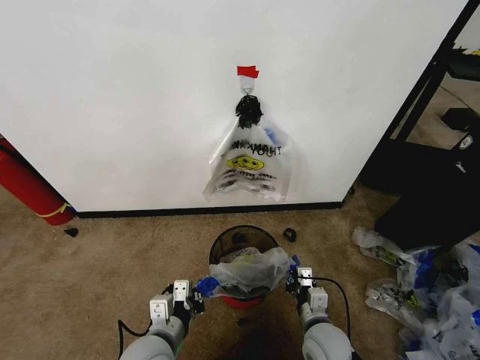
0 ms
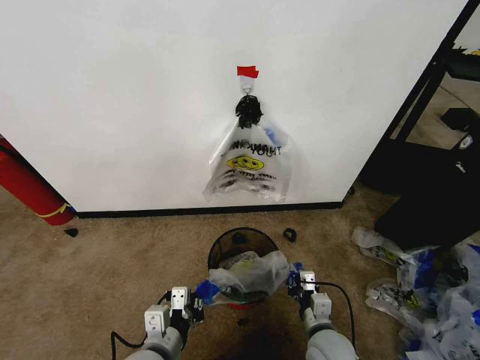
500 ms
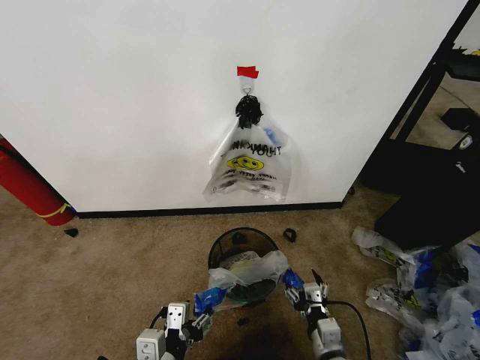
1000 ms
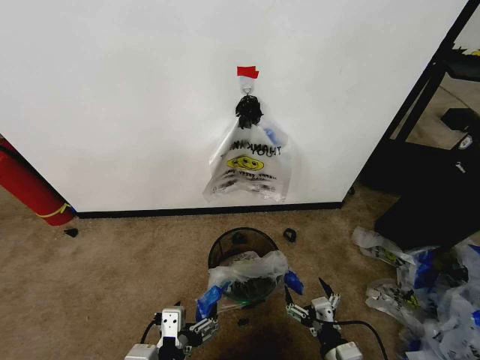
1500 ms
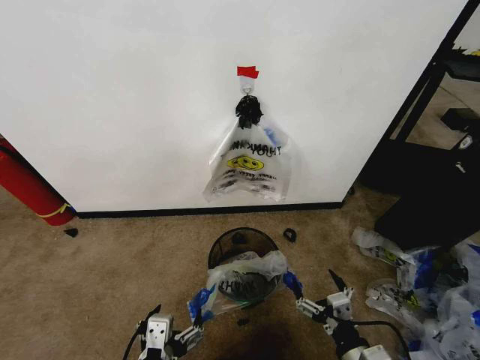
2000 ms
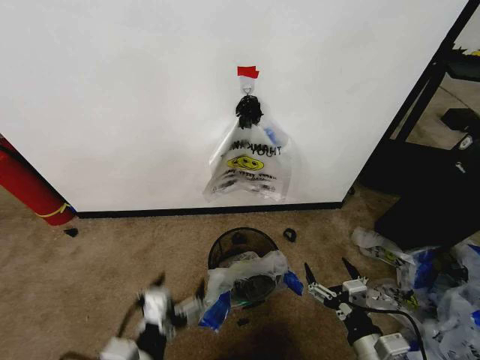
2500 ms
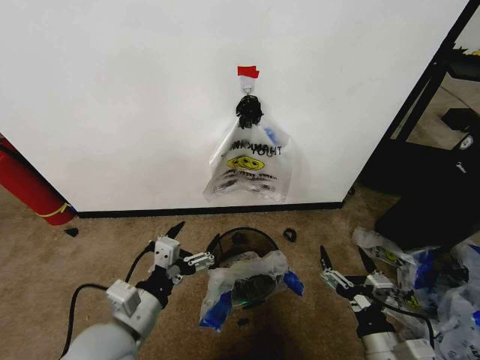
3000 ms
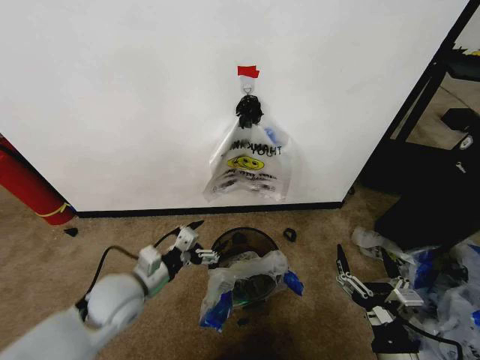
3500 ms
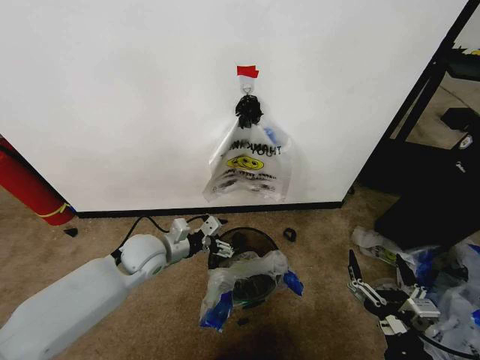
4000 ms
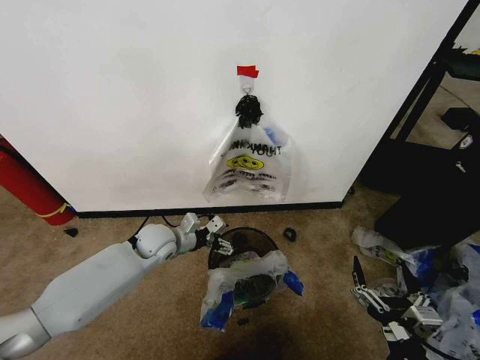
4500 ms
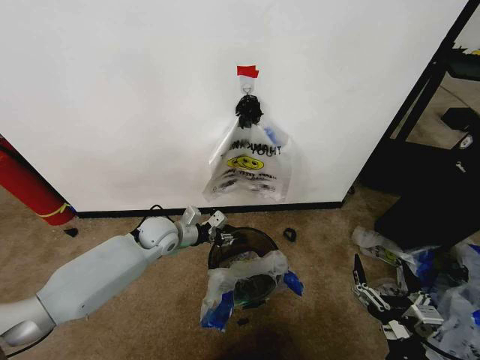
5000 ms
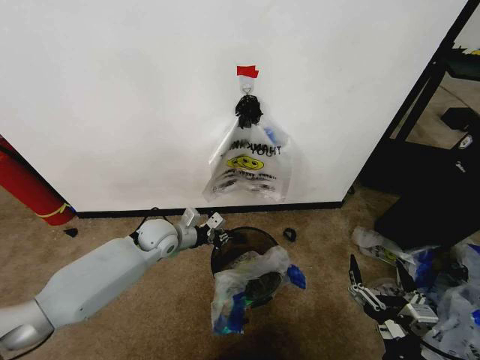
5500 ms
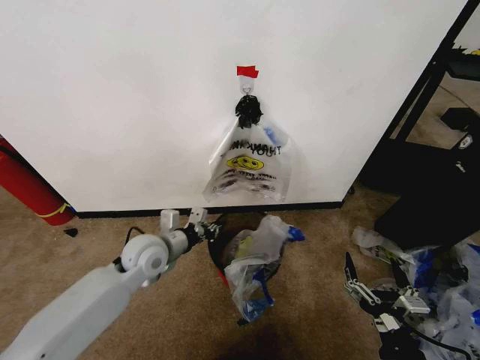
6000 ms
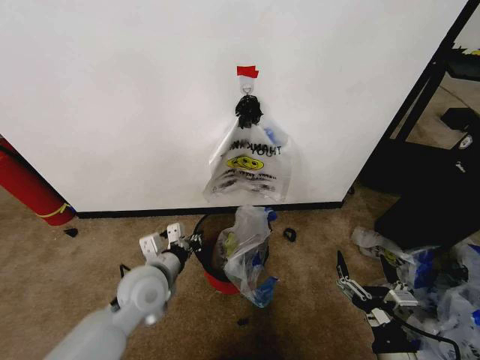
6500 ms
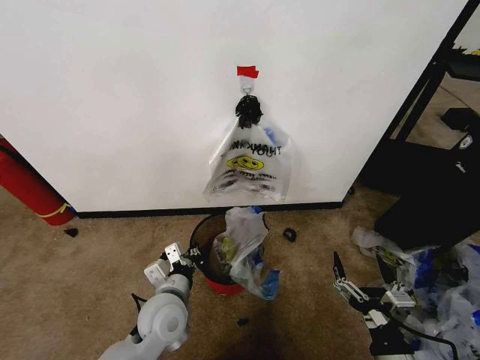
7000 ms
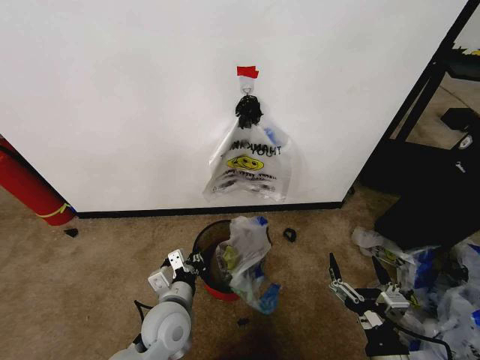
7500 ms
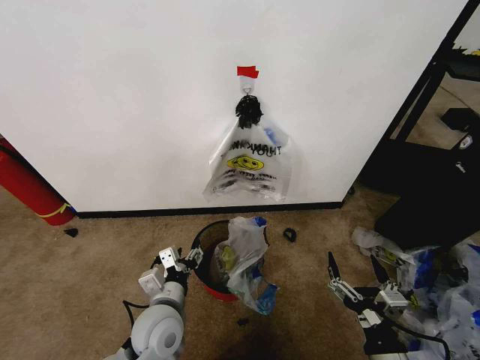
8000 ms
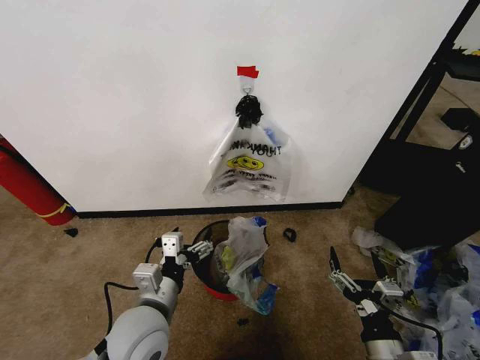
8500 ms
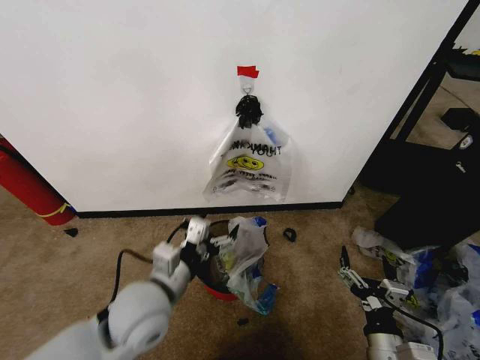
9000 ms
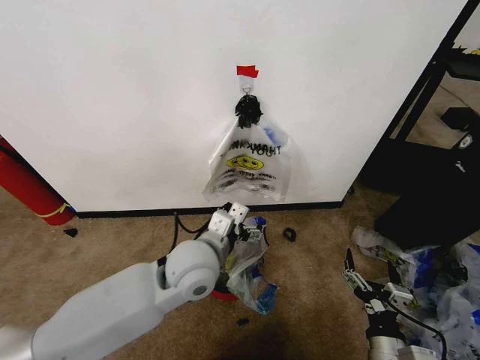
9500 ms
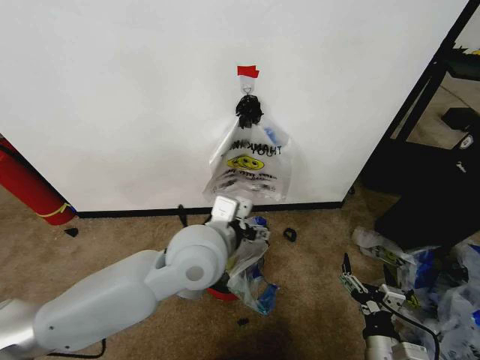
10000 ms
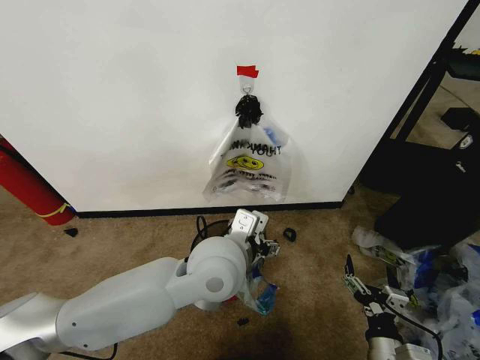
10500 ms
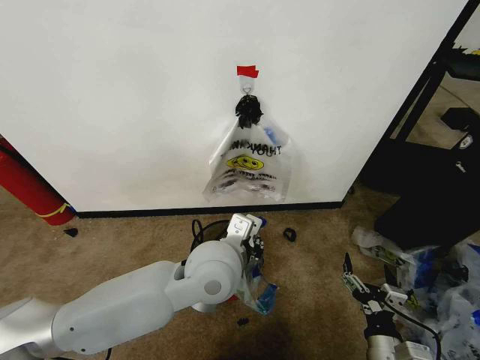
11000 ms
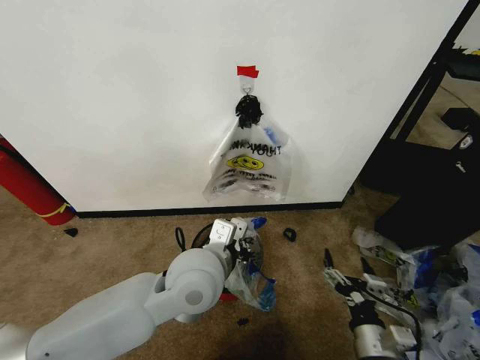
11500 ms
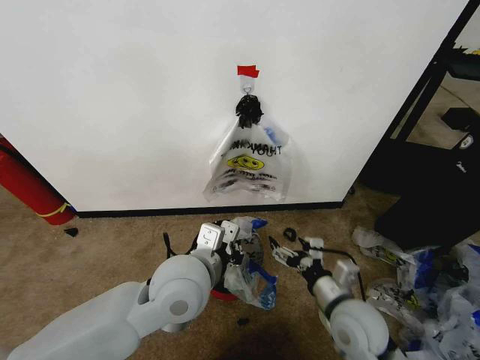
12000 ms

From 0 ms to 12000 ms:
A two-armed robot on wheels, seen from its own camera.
Task of the whole recording: Pick up the garbage bag from the wall and place it over the trash bin.
From 0 ms to 2000 ms: The right gripper heads backward, to the right and upward, covering some 15 cm, and opens up. The left gripper moves backward and upward, approximately 15 cm, and opens.
From 2000 ms to 4000 ms: The left gripper goes some 35 cm forward; the right gripper shifts about 5 cm upward.
From 4000 ms to 6000 ms: The left gripper closes.
From 6000 ms to 8000 ms: The left gripper moves backward and downward, some 15 cm, and opens up.
From 8000 ms to 10000 ms: The left gripper shifts approximately 20 cm upward and to the right, while the right gripper heads downward, covering roughly 5 cm.
From 10000 ms to 12000 ms: The right gripper goes about 15 cm forward, upward and to the left. Meanwhile the left gripper changes place by approximately 5 cm, and closes.

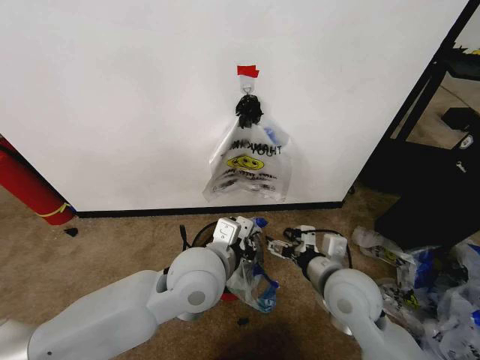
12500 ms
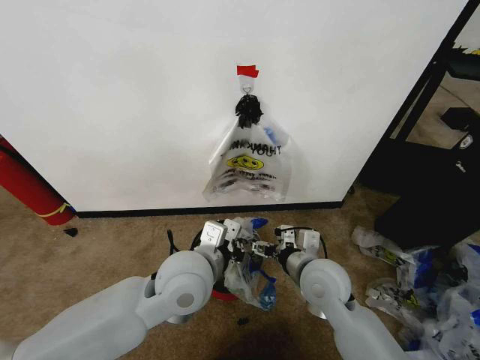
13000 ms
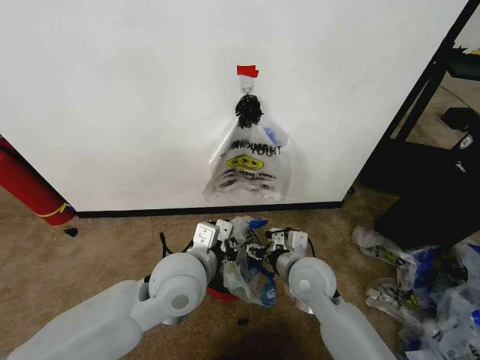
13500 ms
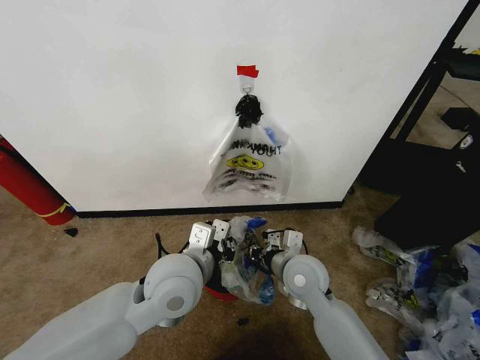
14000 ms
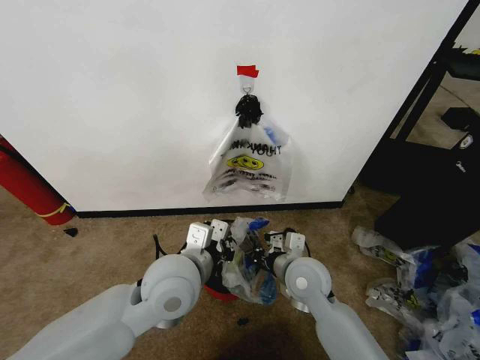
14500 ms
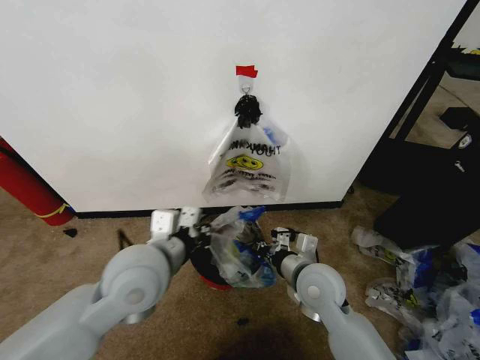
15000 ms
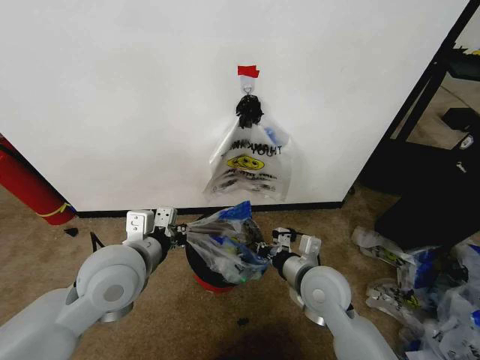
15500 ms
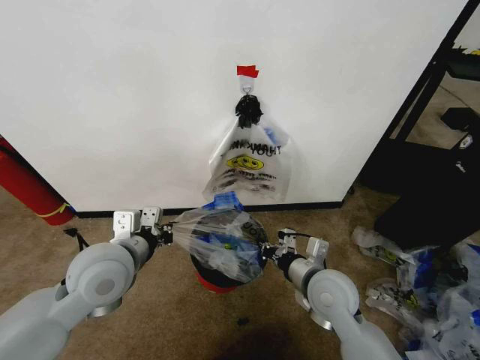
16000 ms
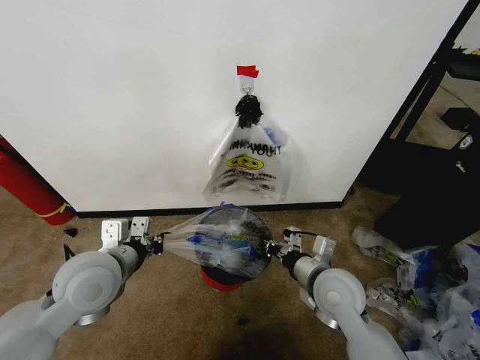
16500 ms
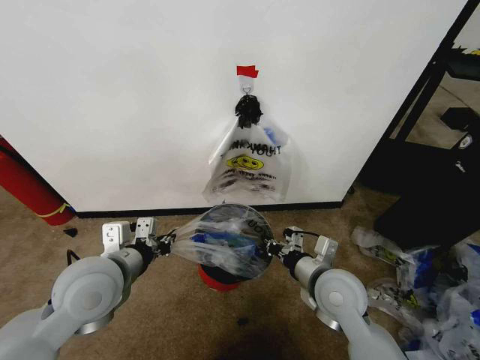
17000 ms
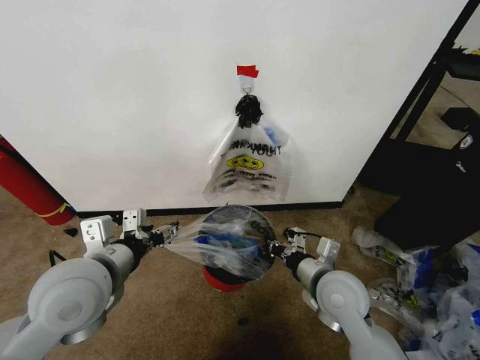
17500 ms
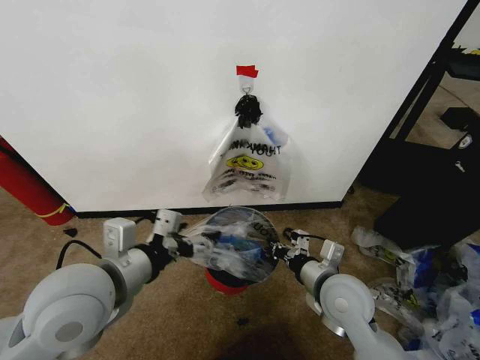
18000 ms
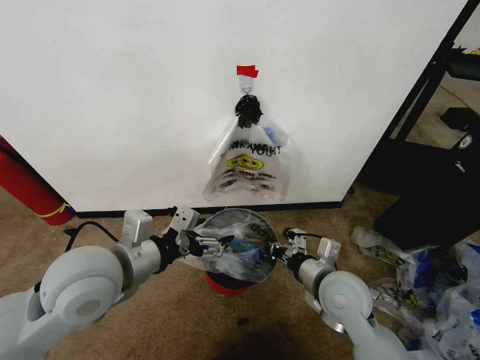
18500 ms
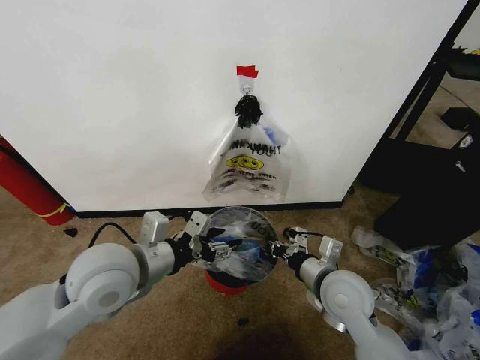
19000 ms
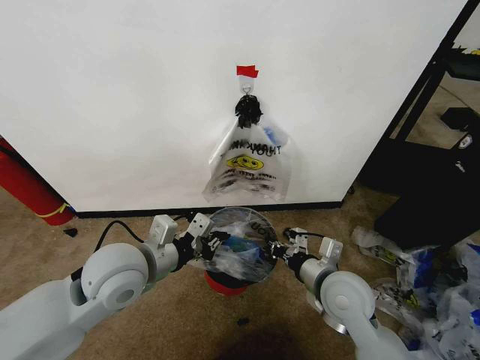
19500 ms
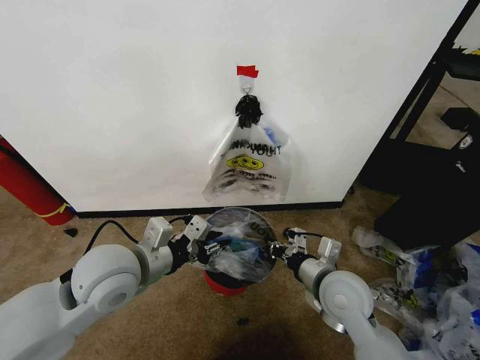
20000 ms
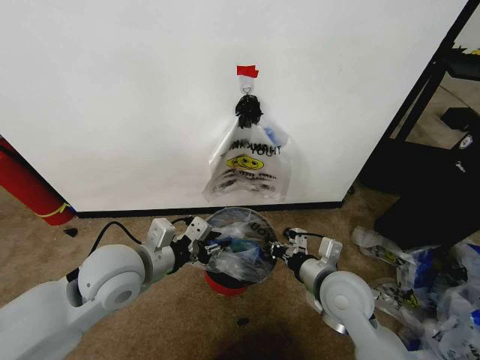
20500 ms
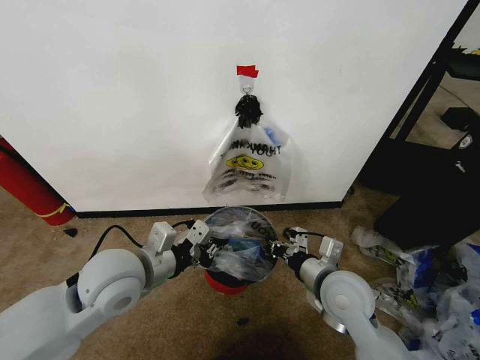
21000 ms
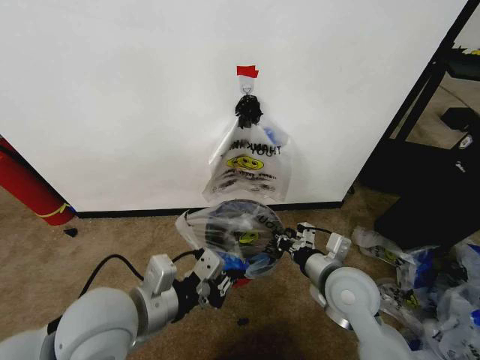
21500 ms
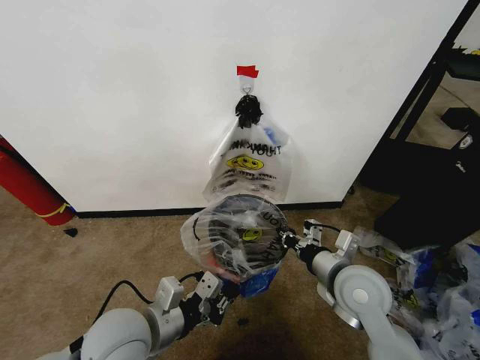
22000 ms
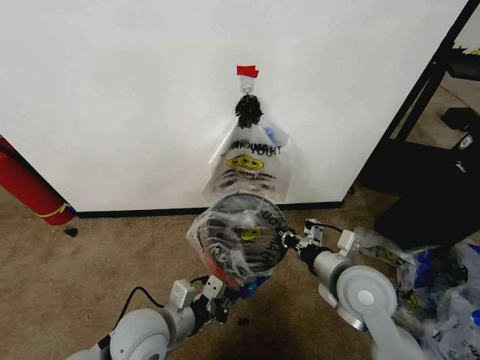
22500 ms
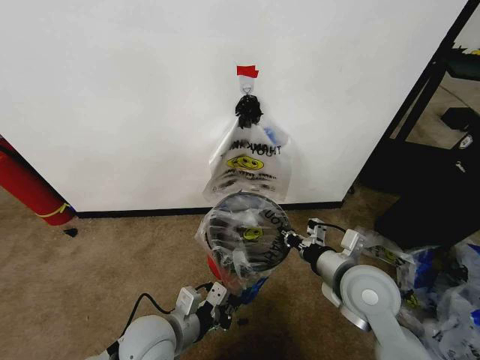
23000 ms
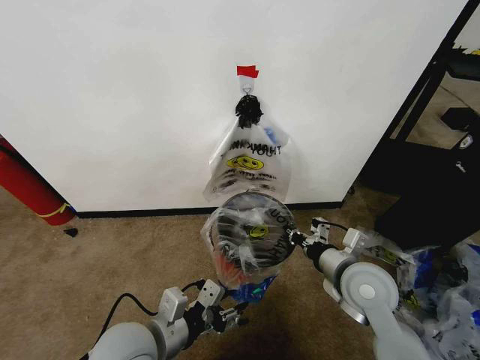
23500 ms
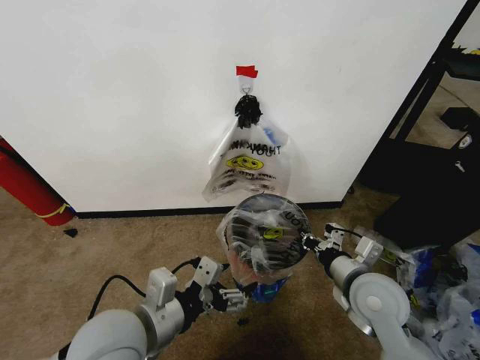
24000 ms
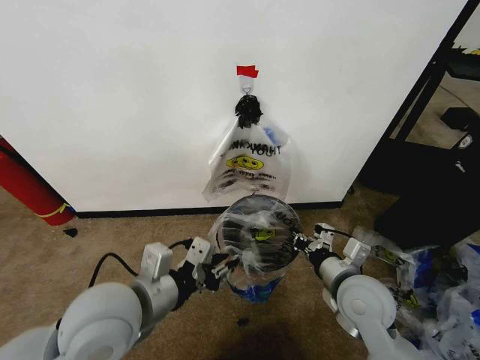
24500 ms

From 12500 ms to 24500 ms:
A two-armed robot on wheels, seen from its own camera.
Task of the whole recording: Pick up the garbage bag from the wall and place it over the trash bin.
From 12500 ms to 14500 ms: The right gripper shifts approximately 10 cm to the left and forward, and closes.
From 14500 ms to 16500 ms: The left gripper is displaced to the left by approximately 15 cm. The right gripper changes place by about 5 cm.
From 16500 ms to 18500 ms: The left gripper goes some 5 cm upward, and opens.
From 18500 ms to 20500 ms: The left gripper shifts by approximately 5 cm, and closes.
From 20500 ms to 22500 ms: The left gripper shifts approximately 15 cm downward and backward.
From 22500 ms to 24500 ms: The left gripper heads upward, covering some 15 cm, and opens, then closes again.

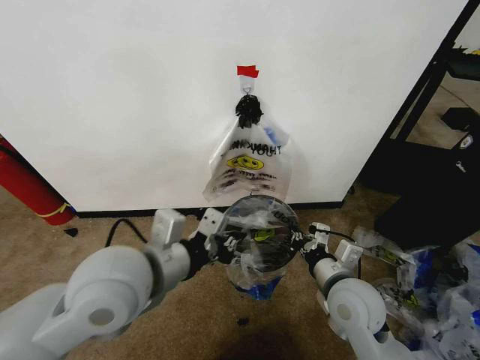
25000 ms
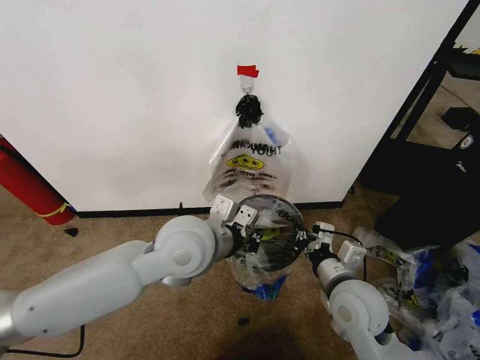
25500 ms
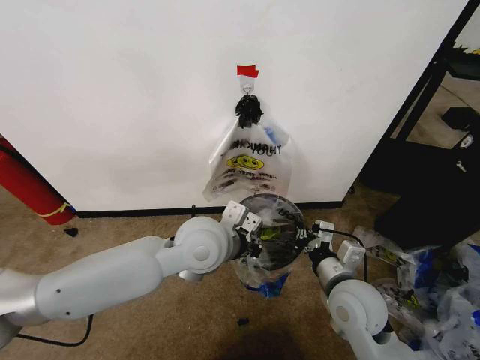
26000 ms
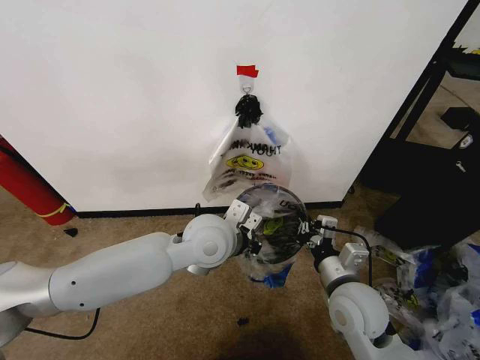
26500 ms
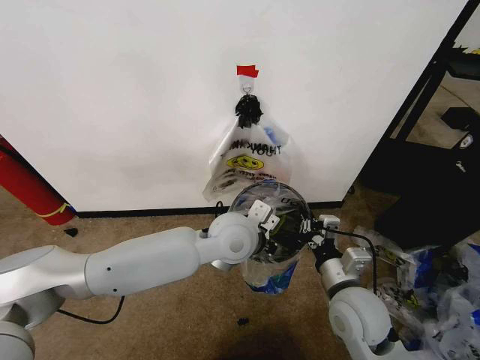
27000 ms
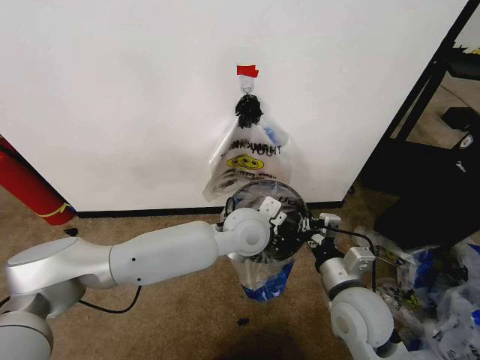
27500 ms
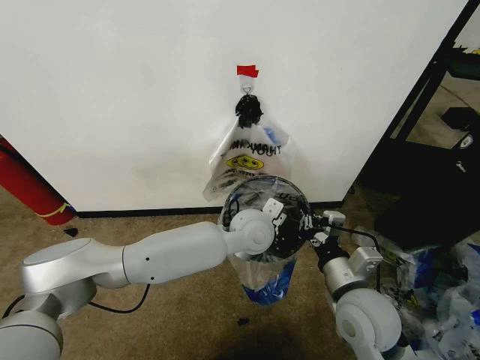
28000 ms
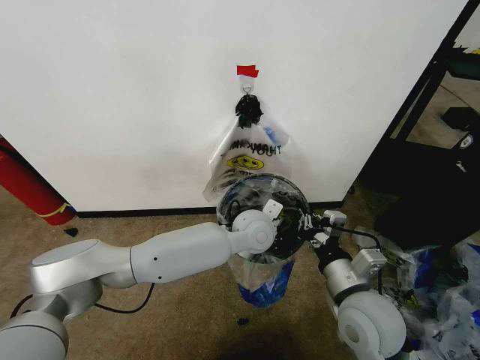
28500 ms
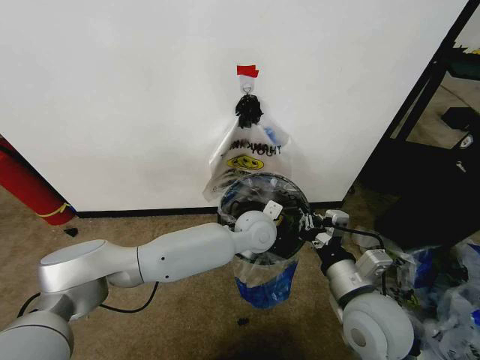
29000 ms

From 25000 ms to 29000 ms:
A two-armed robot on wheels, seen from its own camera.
Task of the whole recording: Pick up the garbage bag from the wall and place it over the trash bin.
From 25000 ms to 27000 ms: The left gripper goes about 20 cm to the right, forward and downward.
From 27000 ms to 29000 ms: The left gripper heads downward, forward and to the right, covering some 10 cm.
